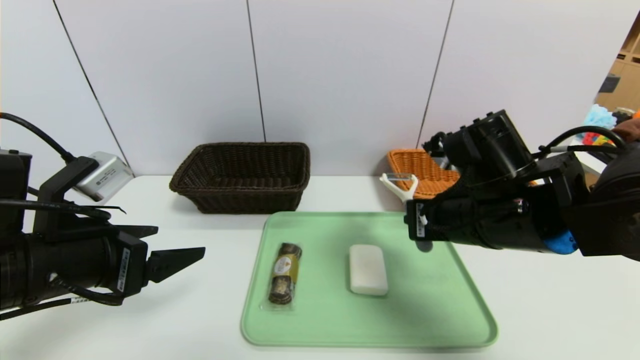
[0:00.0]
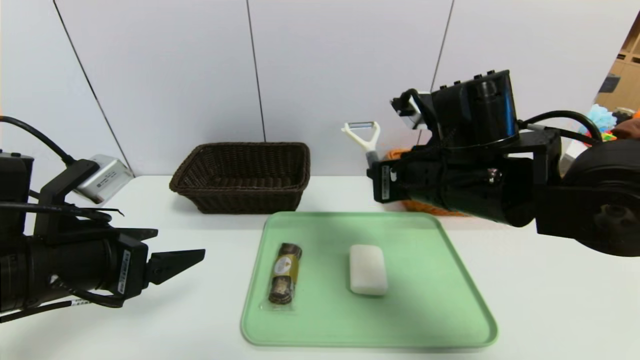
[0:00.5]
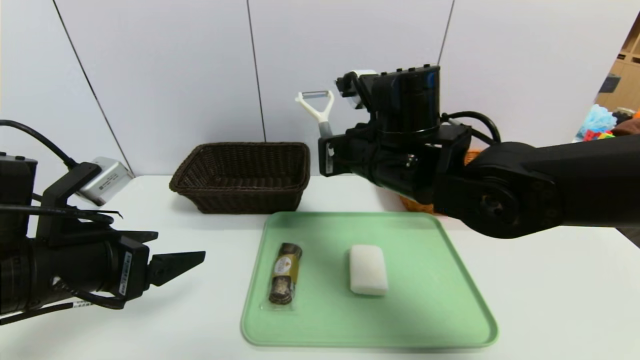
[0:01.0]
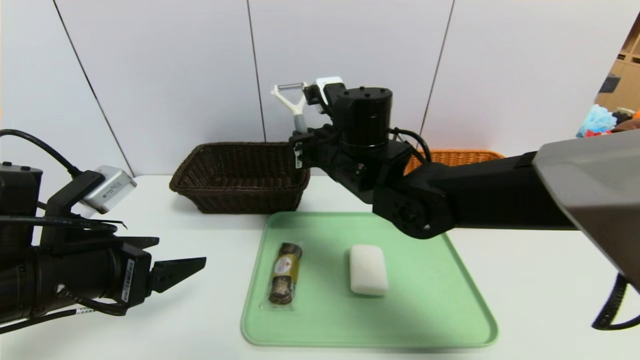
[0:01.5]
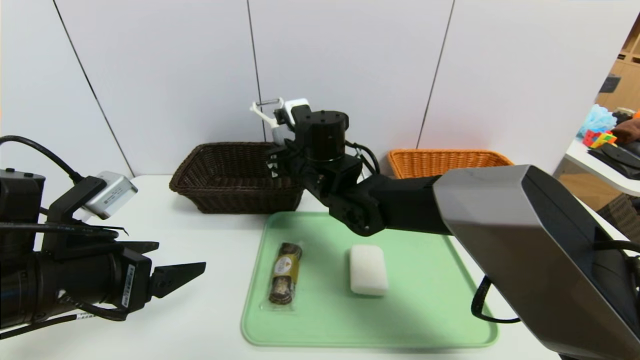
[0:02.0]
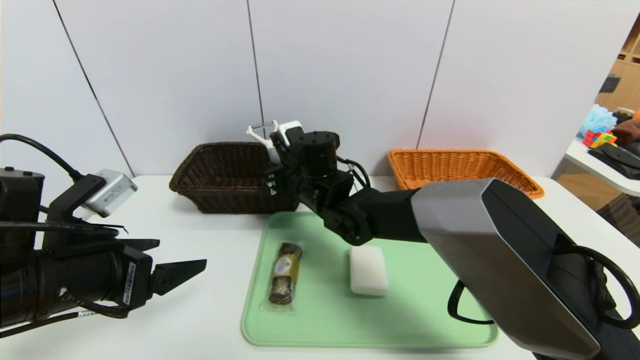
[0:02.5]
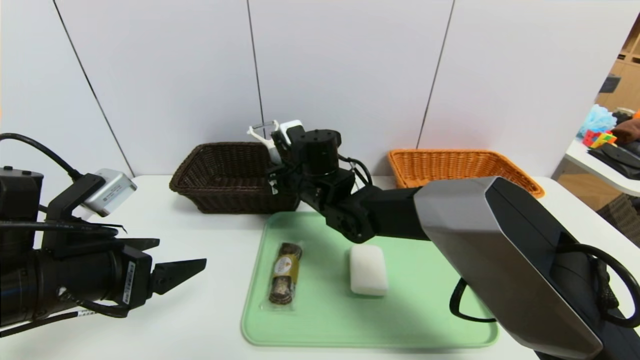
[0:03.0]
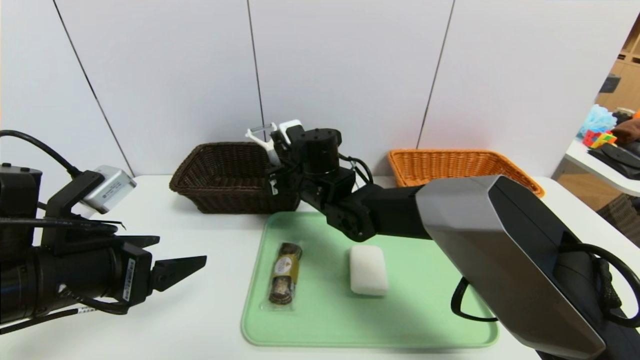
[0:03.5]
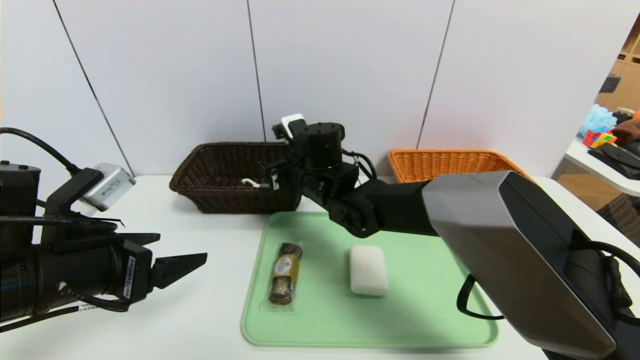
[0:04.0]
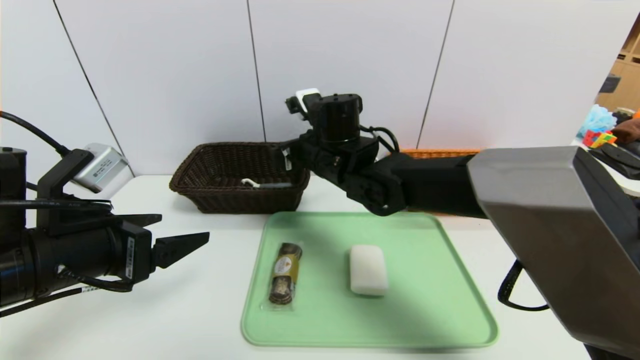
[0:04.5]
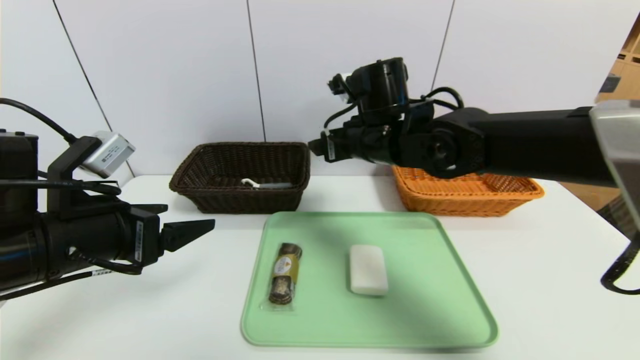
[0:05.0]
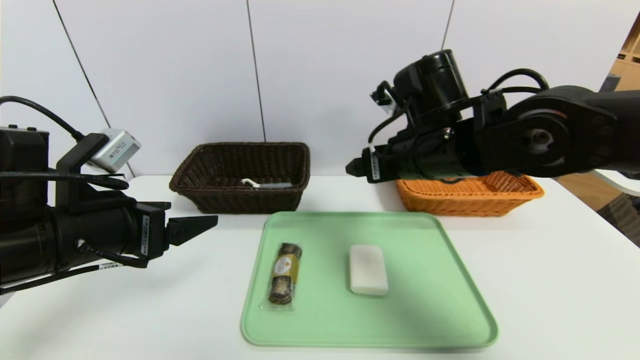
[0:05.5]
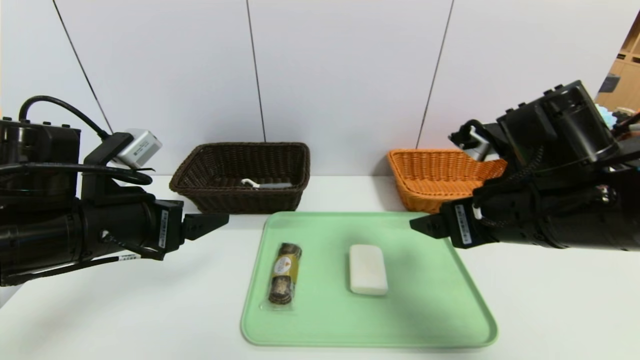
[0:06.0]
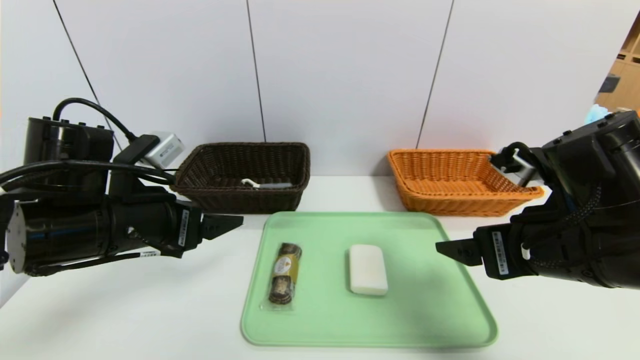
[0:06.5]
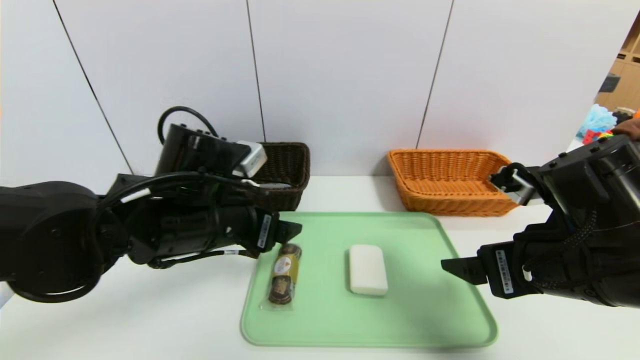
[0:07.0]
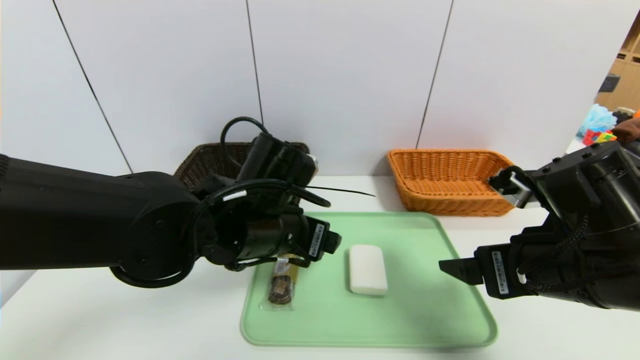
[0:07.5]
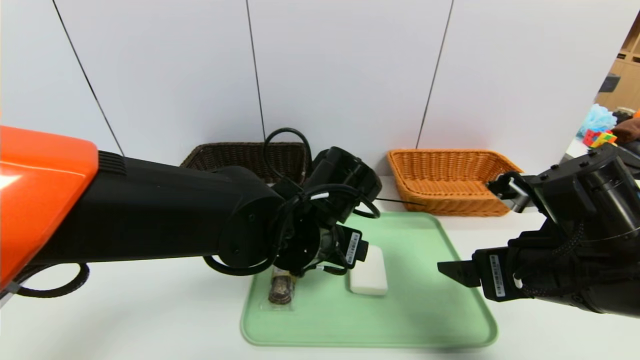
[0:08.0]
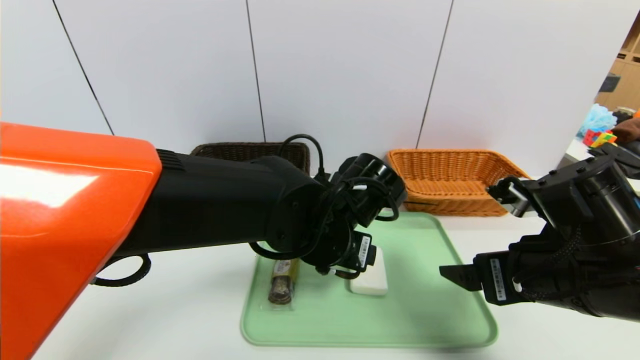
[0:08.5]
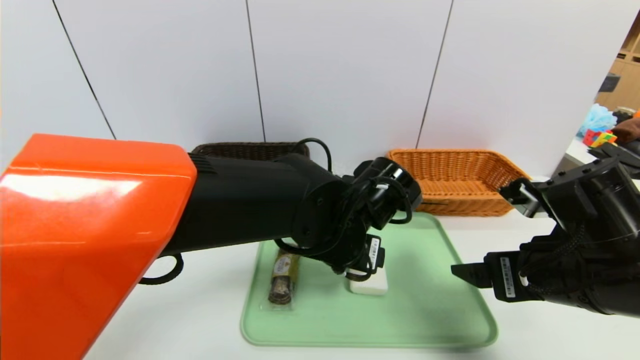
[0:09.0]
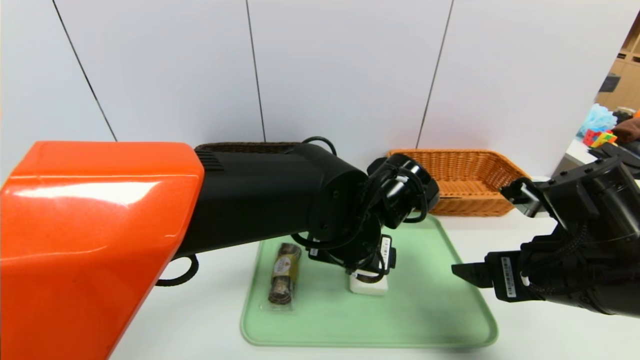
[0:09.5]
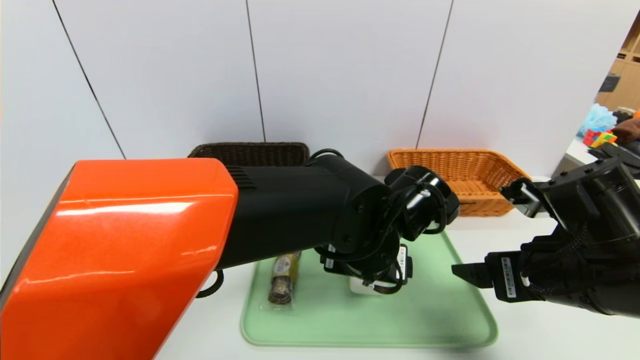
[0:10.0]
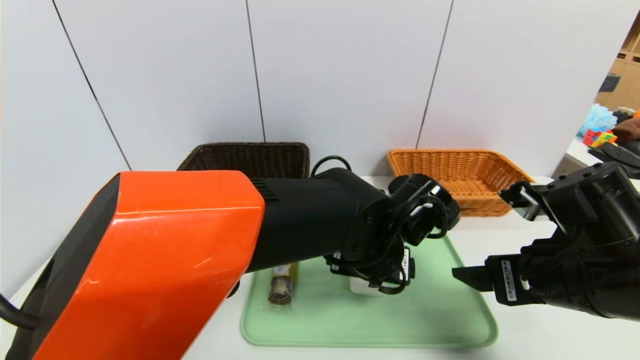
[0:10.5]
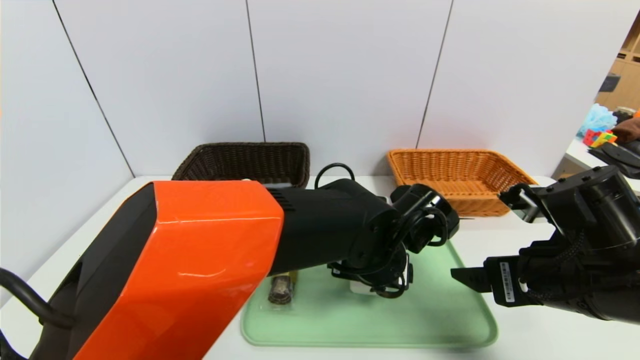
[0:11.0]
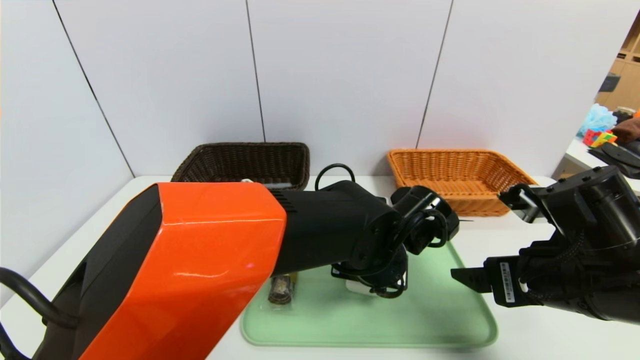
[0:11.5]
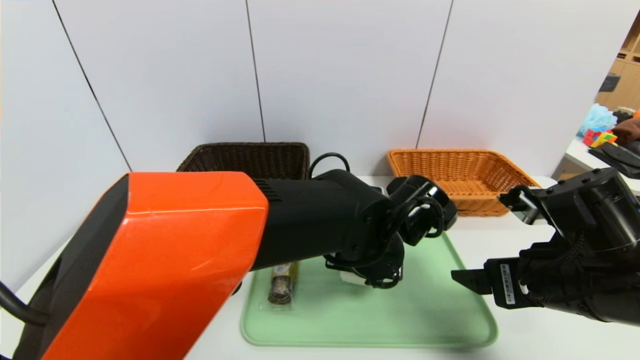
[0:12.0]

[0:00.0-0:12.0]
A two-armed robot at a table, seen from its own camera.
Task of the whole recording: place the food in the right basket with the right gripper, and place the non food items in the left basket with the left gripper.
0:00.0 to 0:02.0: The right gripper travels to the left and forward by roughly 25 cm.
0:02.0 to 0:04.0: The right gripper opens.
0:04.0 to 0:06.0: The right gripper travels to the right and backward by roughly 25 cm.
0:06.0 to 0:08.0: The left gripper heads to the right, covering approximately 20 cm; the right gripper moves approximately 5 cm.
0:08.0 to 0:10.0: The left gripper shifts roughly 5 cm to the right.
0:10.0 to 0:12.0: The left gripper closes its fingers.

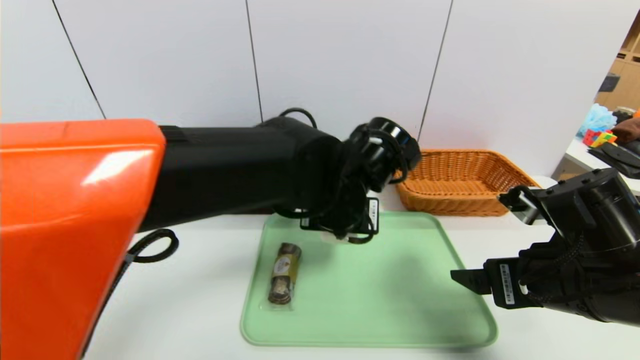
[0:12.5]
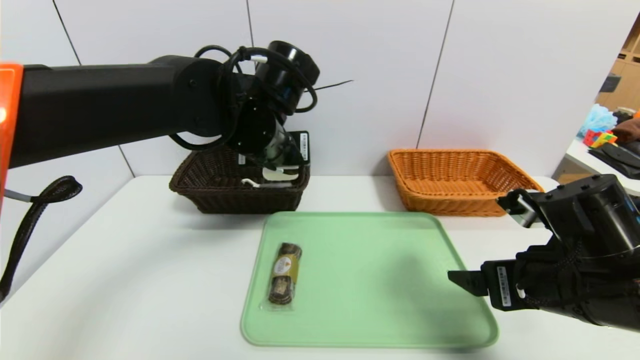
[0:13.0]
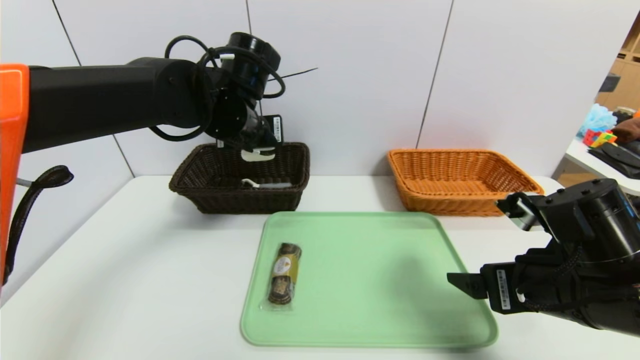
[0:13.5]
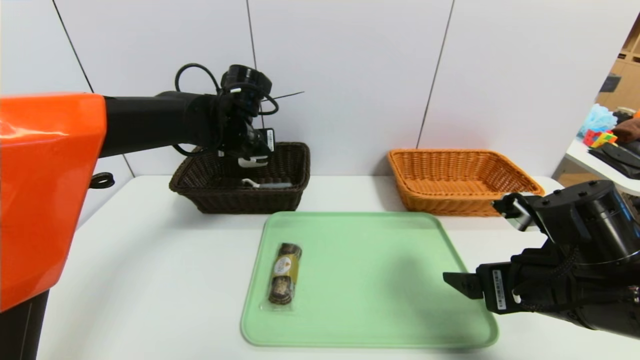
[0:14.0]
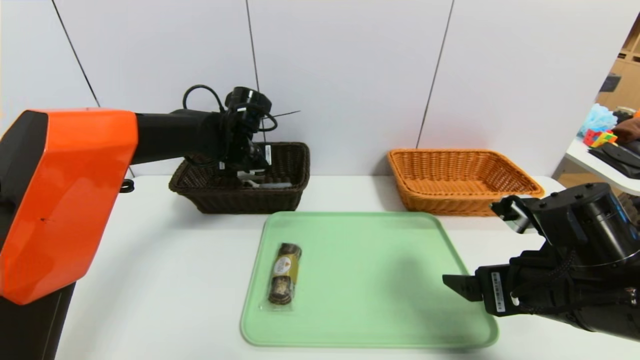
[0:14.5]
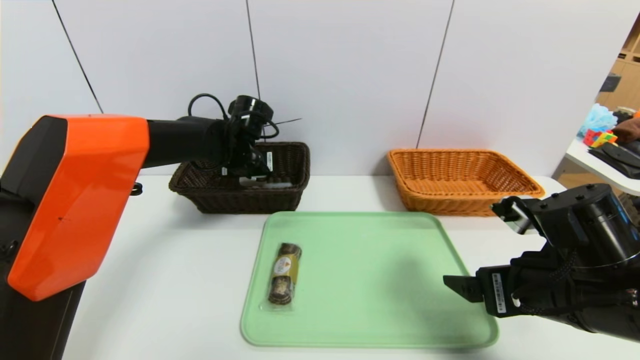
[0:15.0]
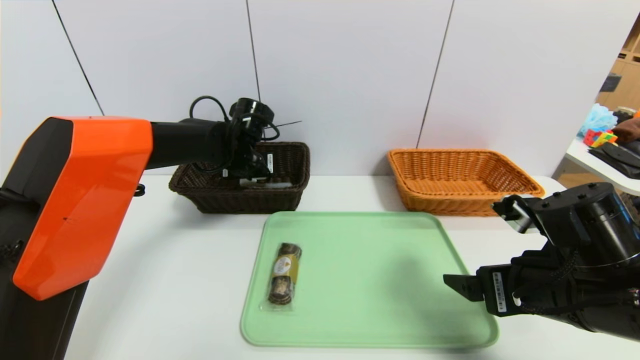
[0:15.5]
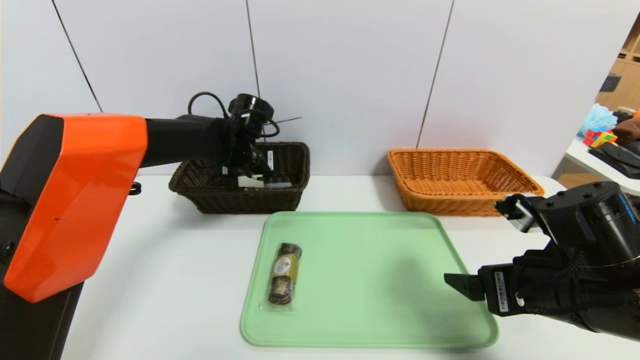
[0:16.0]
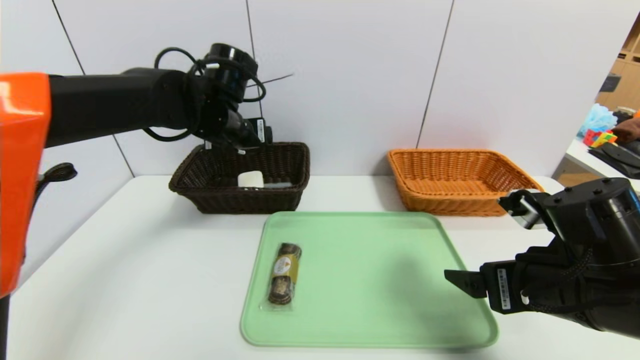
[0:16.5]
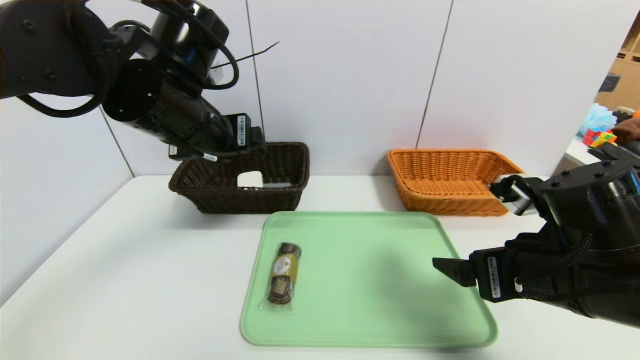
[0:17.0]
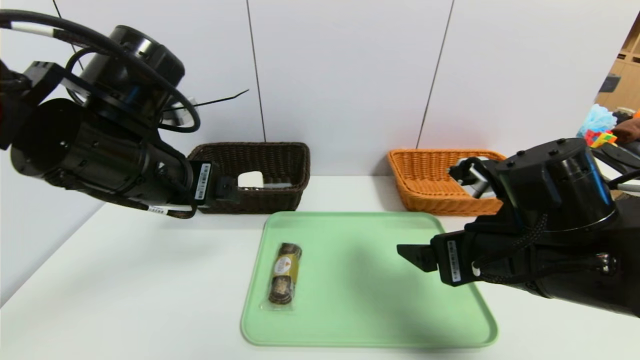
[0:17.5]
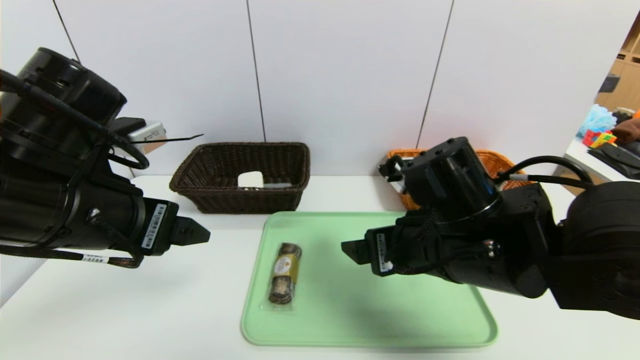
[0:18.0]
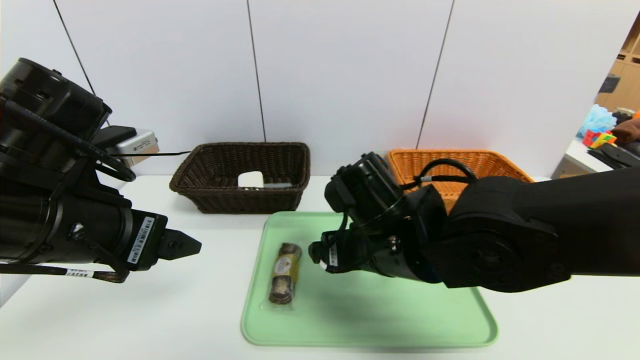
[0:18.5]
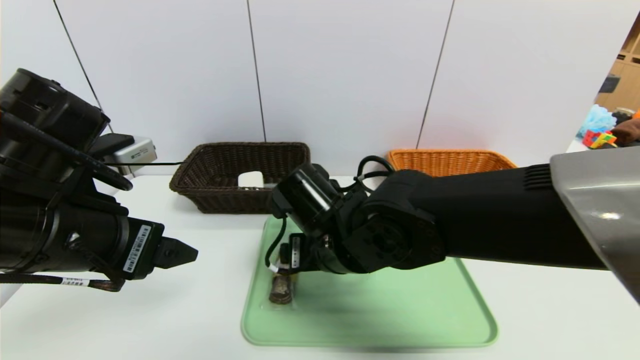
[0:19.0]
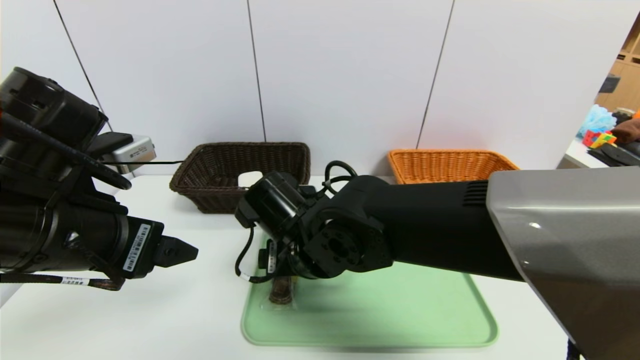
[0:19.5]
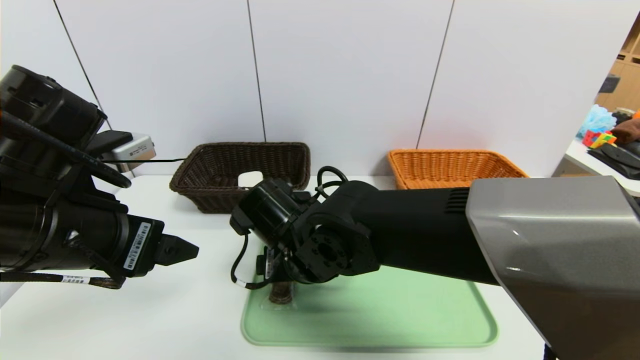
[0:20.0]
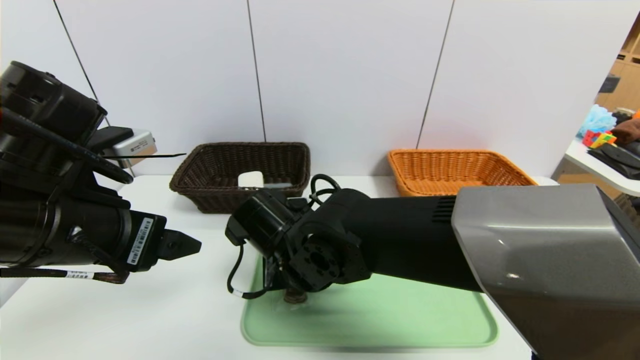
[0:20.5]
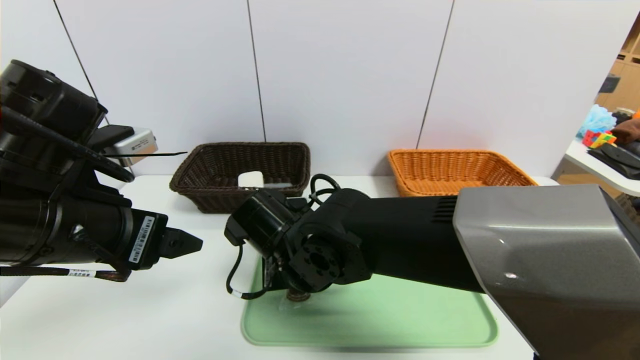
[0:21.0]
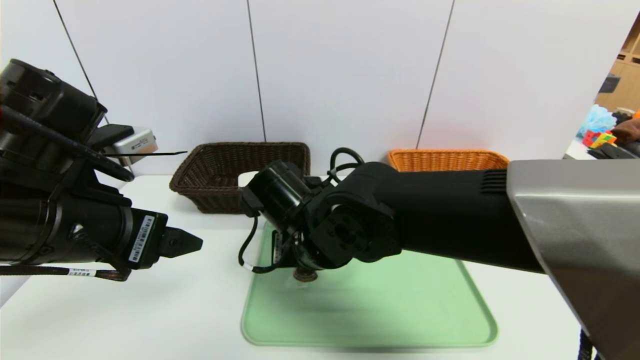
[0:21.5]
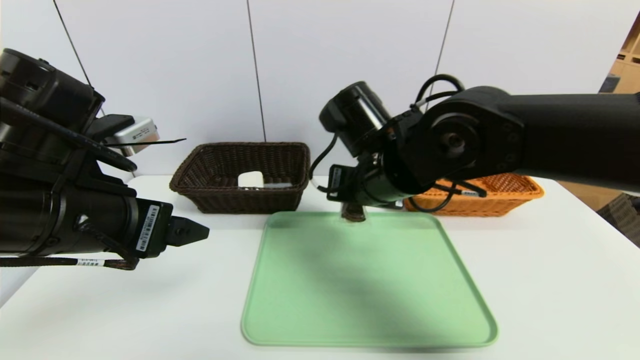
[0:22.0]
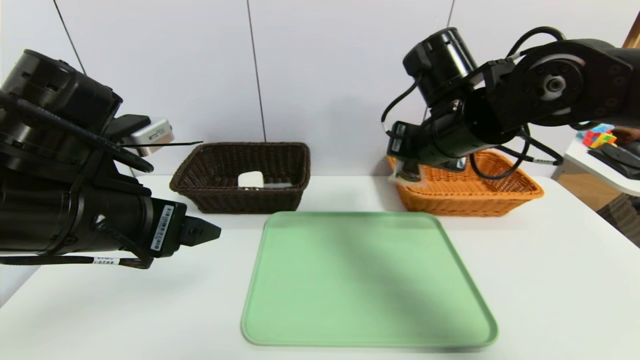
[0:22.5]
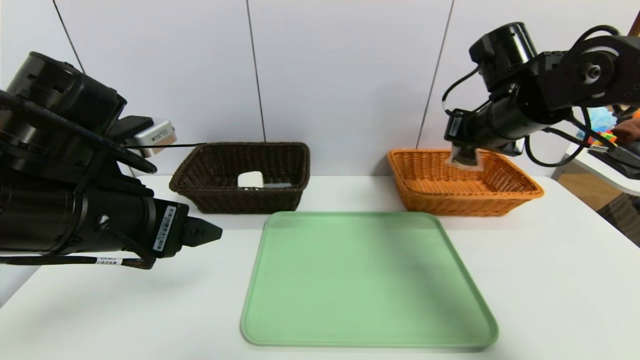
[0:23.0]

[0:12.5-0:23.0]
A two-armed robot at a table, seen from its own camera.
Task of the whole recording: place the food in the right basket with the right gripper, and place the non food items in the left basket with the left gripper.
Step, 0:12.5 to 0:16.0: Grasp the soap and put it in the left basket.
0:12.5 to 0:14.5: The left gripper travels forward and to the left by approximately 25 cm.
0:14.5 to 0:16.5: The left gripper is displaced upward by roughly 5 cm, and opens.
0:16.5 to 0:19.0: The right gripper heads to the left, covering approximately 20 cm, while the left gripper moves backward, roughly 20 cm.
0:19.0 to 0:21.0: The right gripper shifts by about 5 cm, and closes.
0:21.0 to 0:23.0: The right gripper heads to the right and upward, covering roughly 30 cm.
